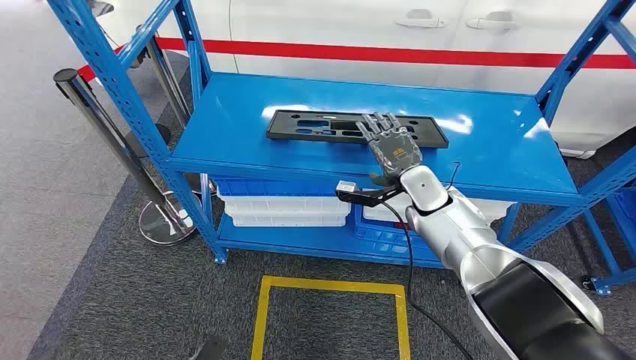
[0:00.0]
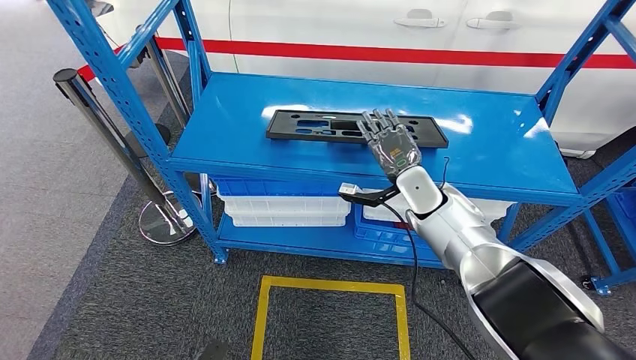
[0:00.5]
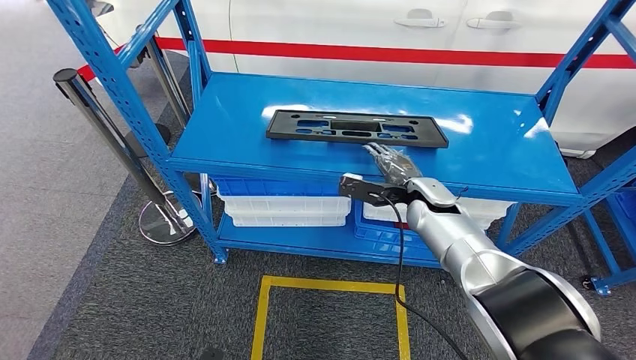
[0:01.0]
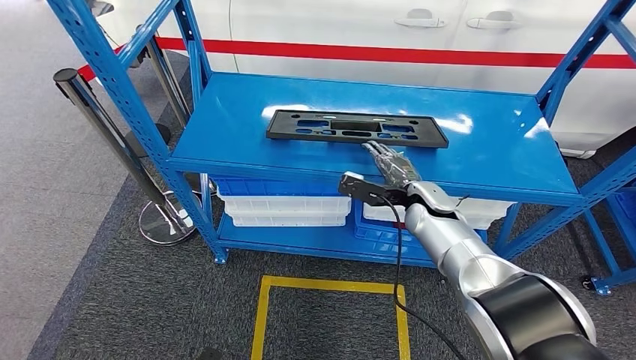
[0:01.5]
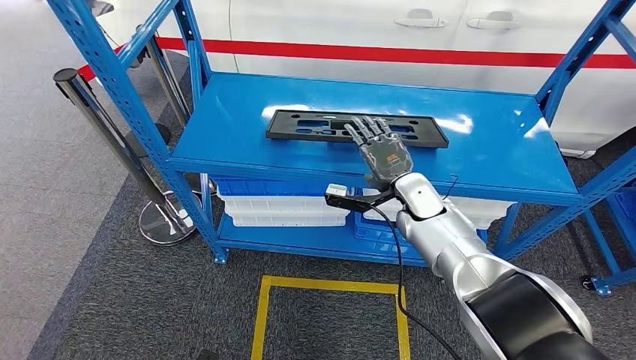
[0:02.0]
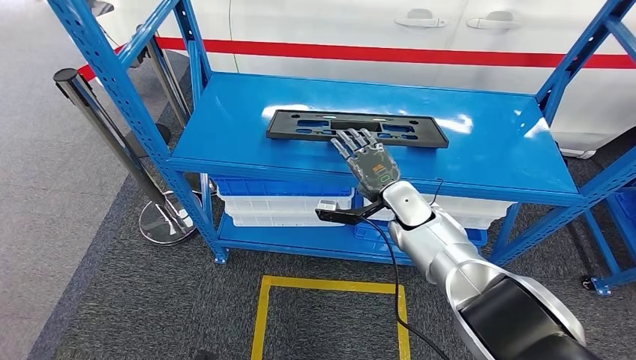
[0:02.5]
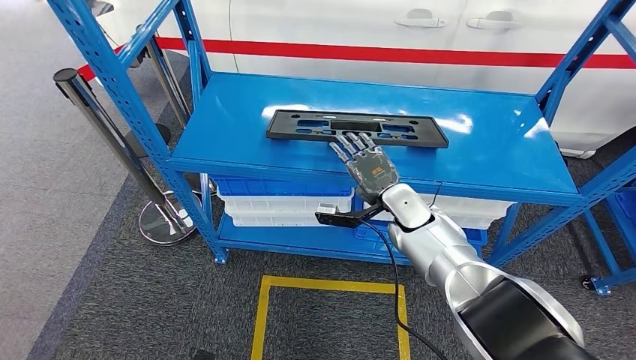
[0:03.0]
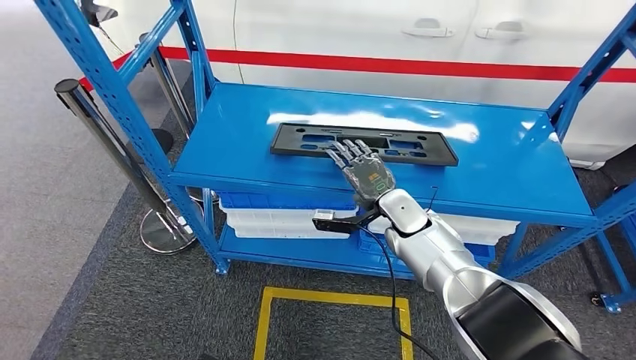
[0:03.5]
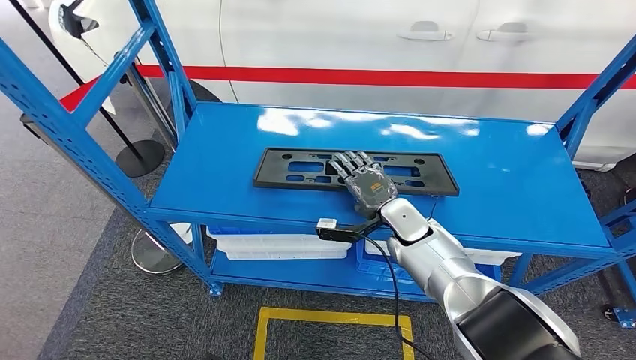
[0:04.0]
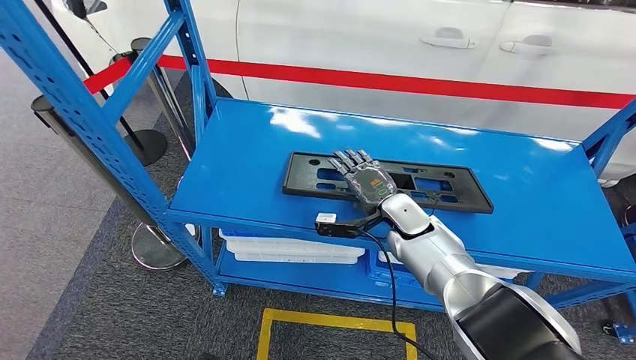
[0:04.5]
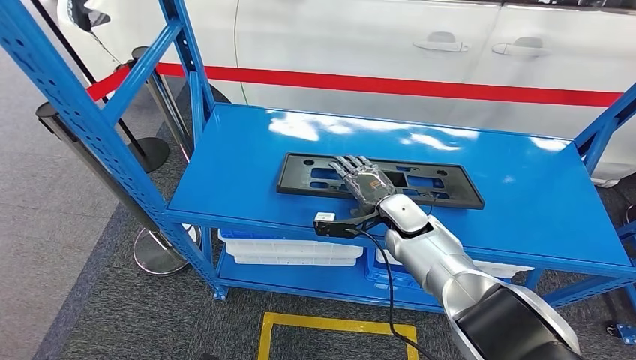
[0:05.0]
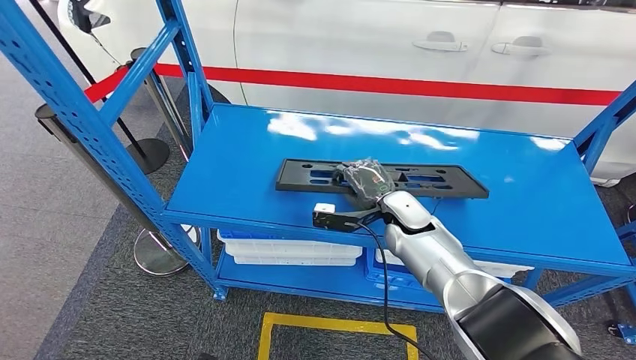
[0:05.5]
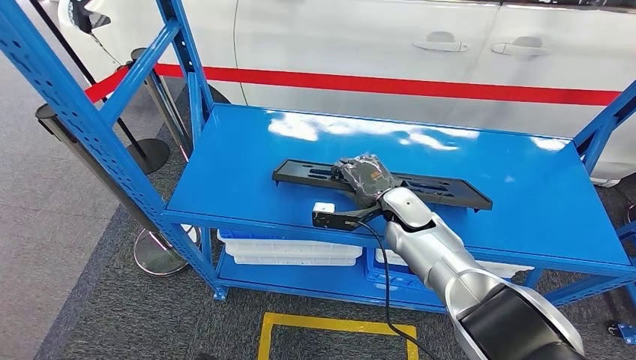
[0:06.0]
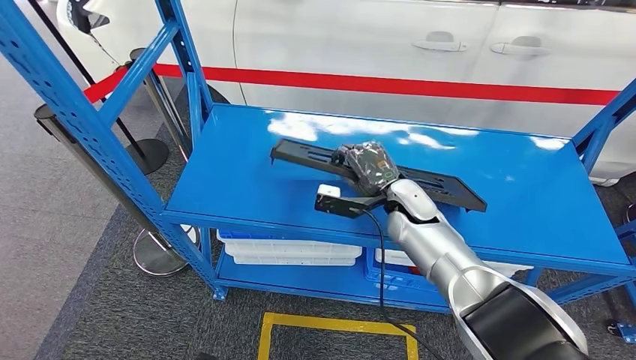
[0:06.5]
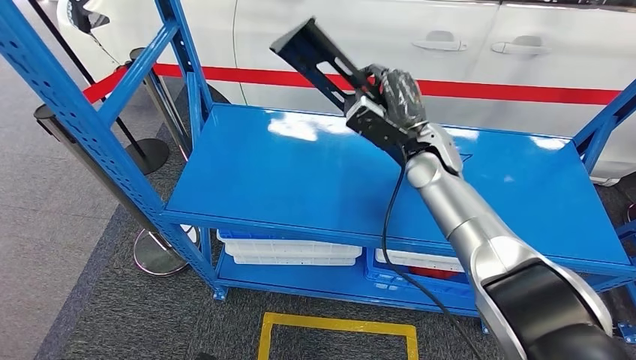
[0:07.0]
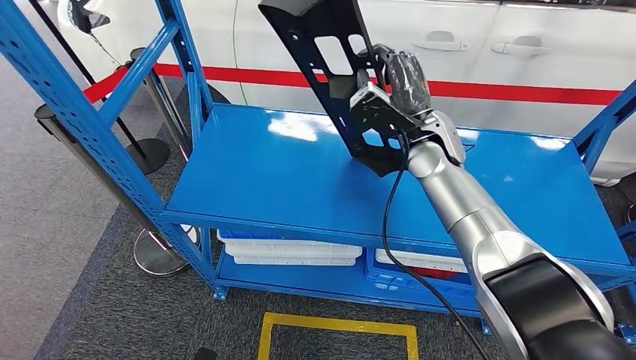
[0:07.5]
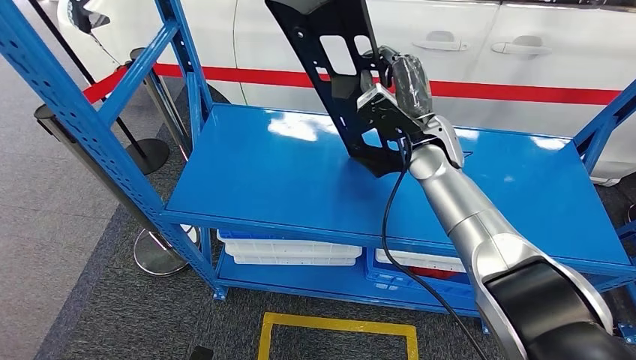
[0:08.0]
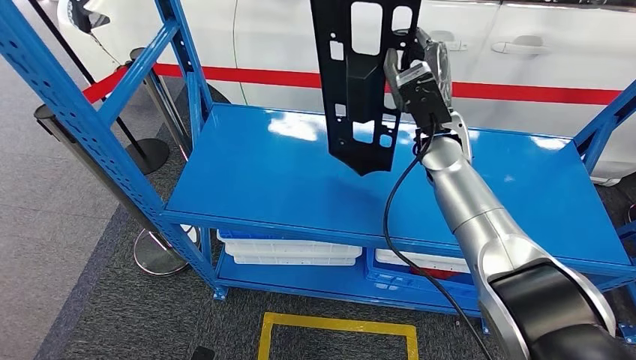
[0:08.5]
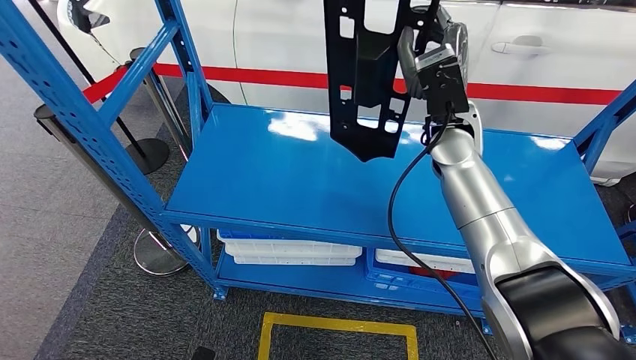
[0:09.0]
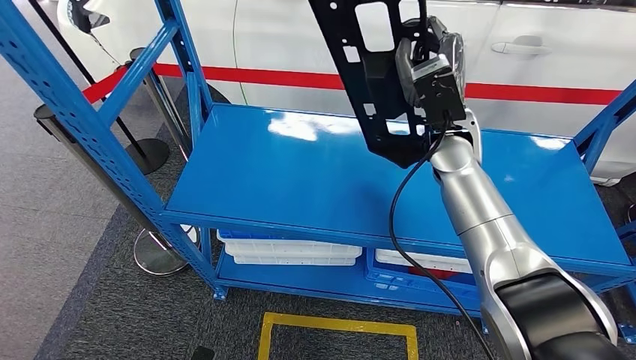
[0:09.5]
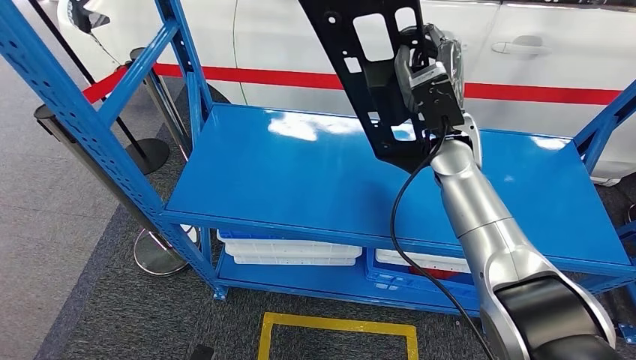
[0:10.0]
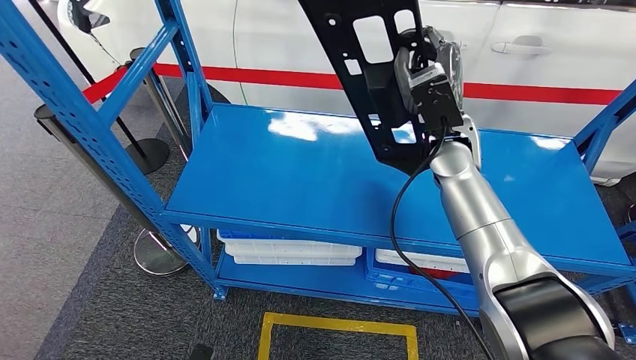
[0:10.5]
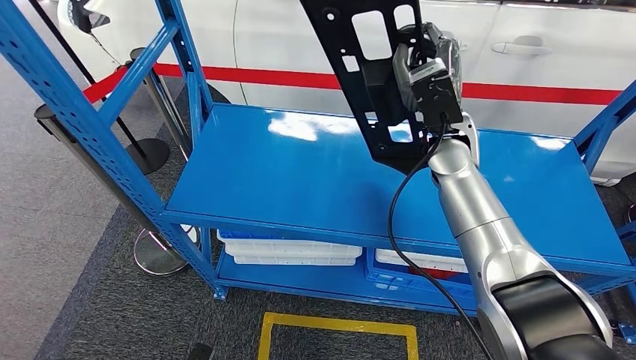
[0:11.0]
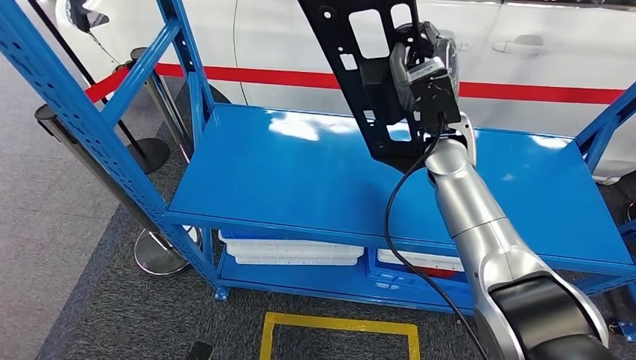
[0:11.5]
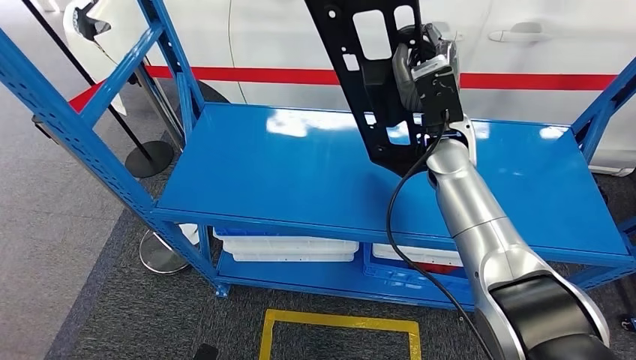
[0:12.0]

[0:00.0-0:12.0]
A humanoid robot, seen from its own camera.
Step, 0:00.0 to 0:07.5: Pick up the large material from the shelf.
0:08.0 to 0:10.0: The hands stay close to where they were, moving slightly.

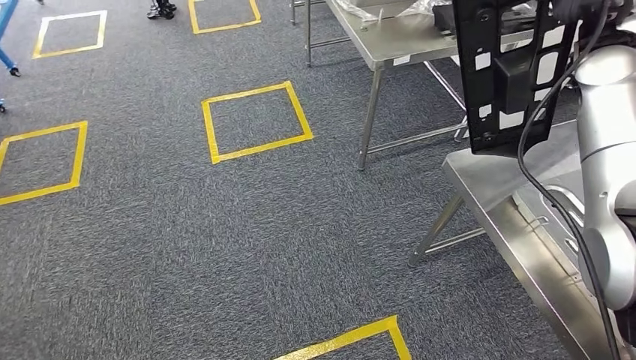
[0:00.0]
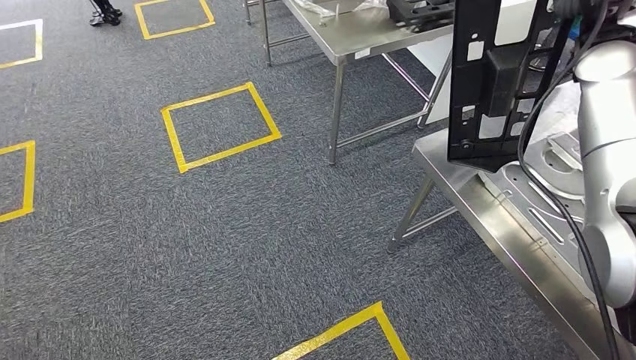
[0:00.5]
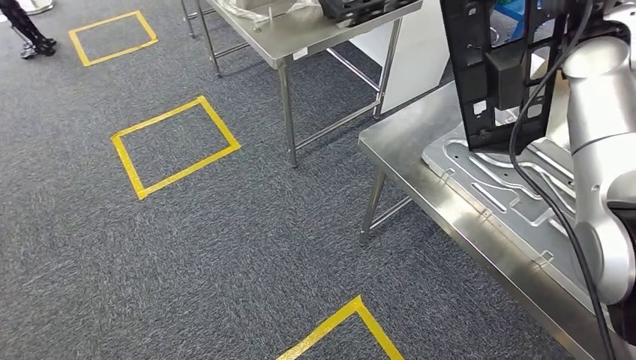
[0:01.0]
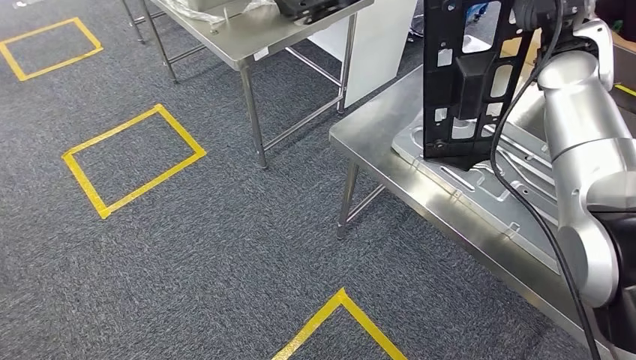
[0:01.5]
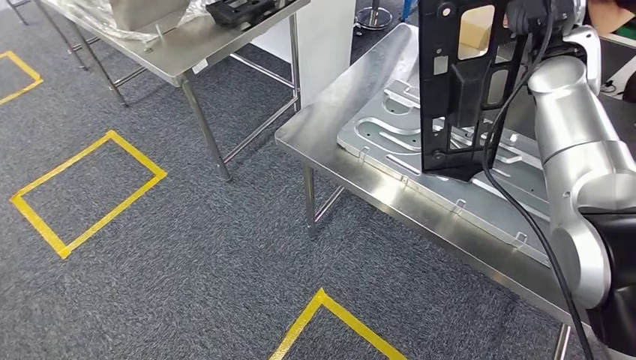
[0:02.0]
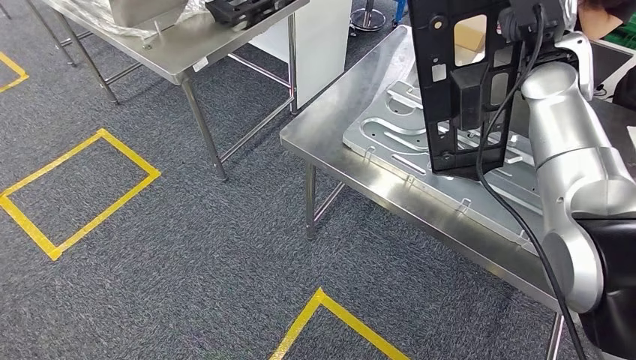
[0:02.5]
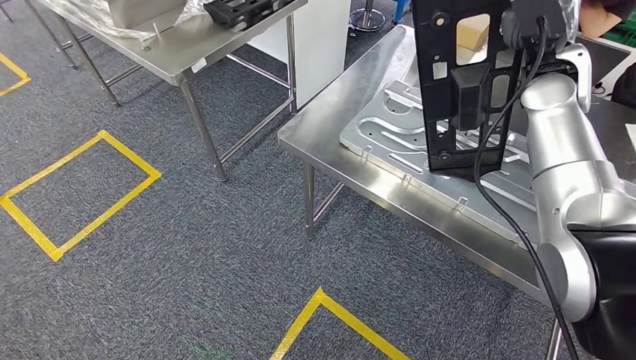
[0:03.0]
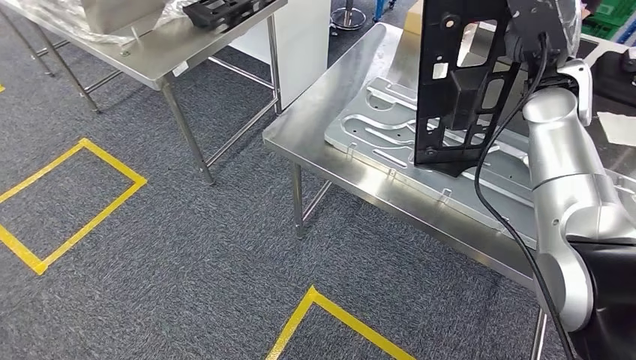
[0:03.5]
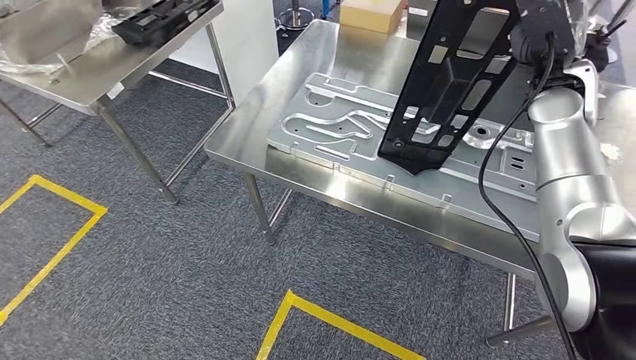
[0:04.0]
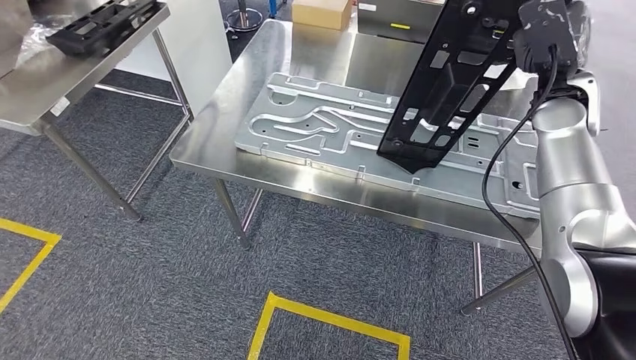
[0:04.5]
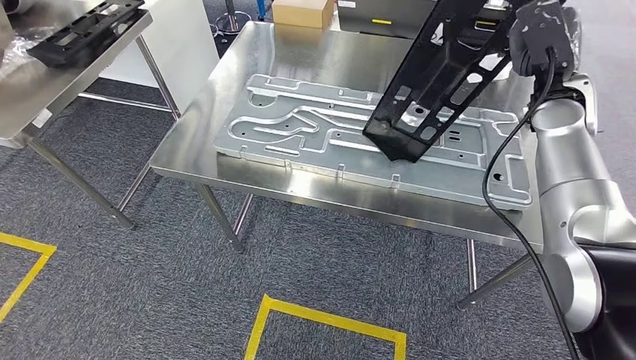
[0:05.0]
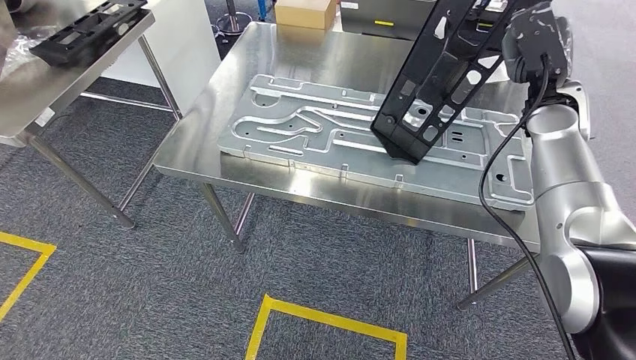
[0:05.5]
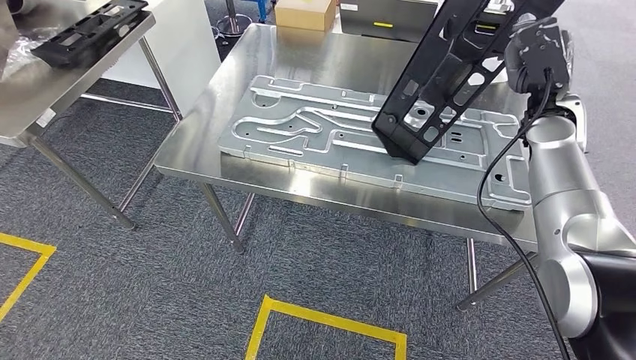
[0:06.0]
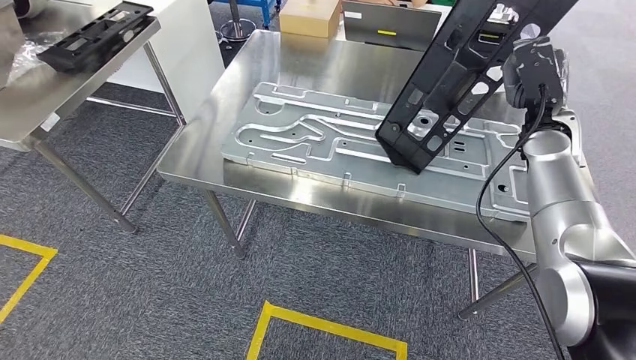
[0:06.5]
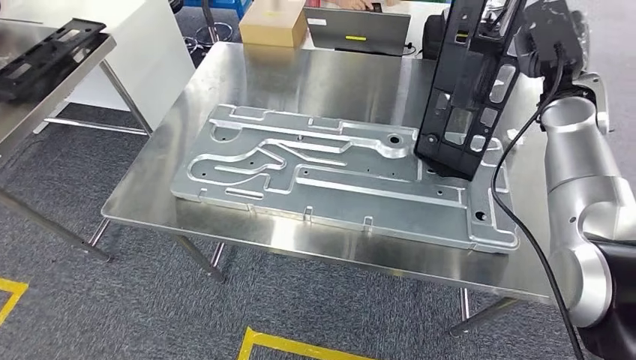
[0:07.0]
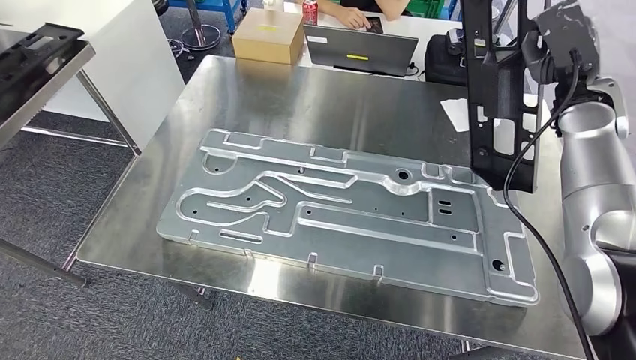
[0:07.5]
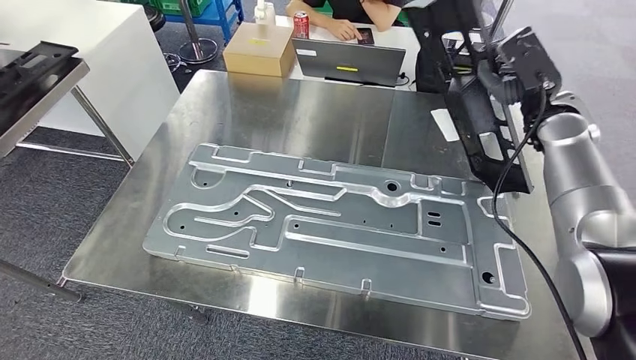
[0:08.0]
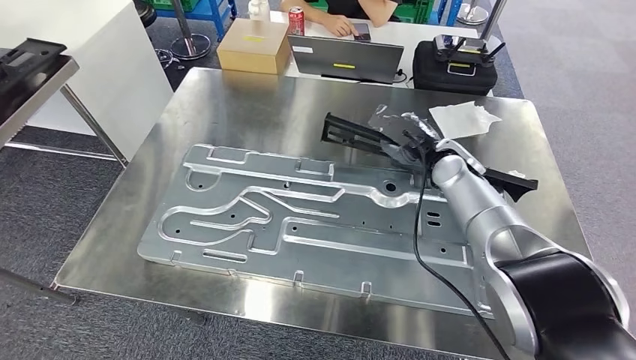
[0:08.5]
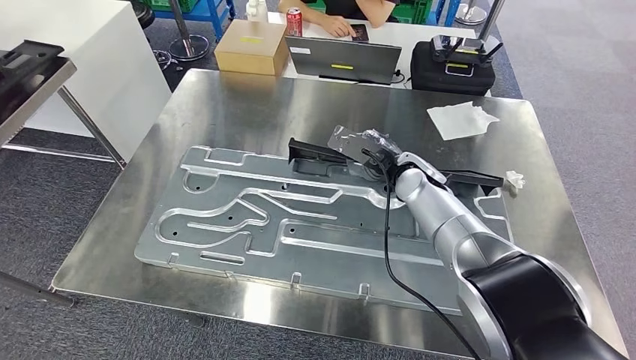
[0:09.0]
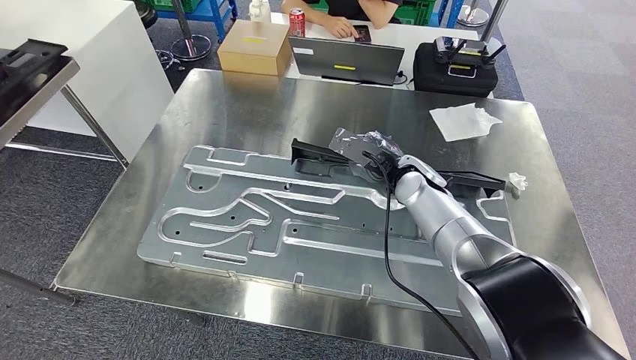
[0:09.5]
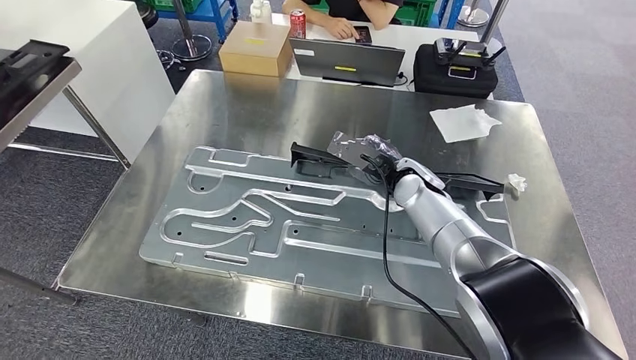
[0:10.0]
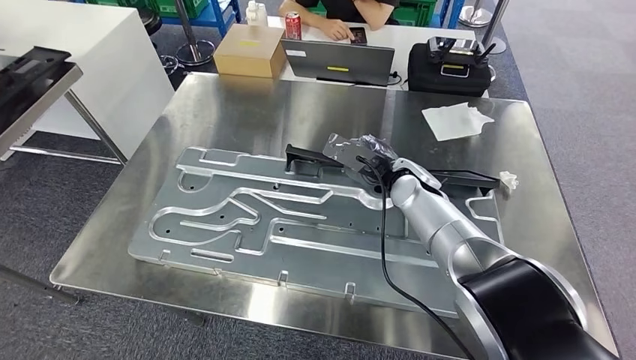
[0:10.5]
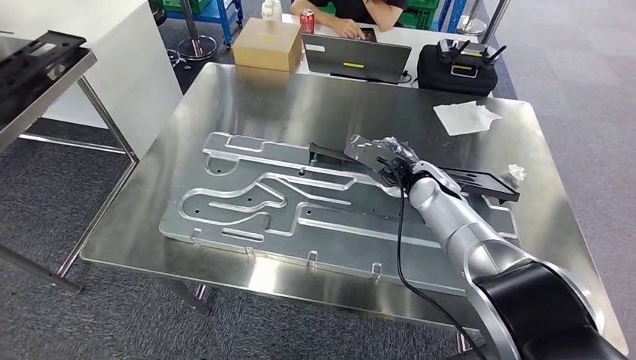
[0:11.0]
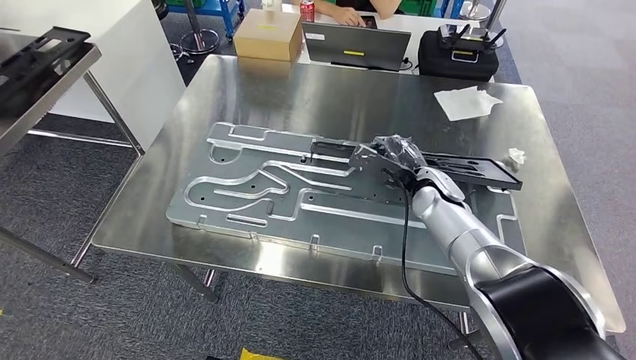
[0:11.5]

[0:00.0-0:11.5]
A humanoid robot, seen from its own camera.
Step, 0:00.0 to 0:03.0: Move the large material to the workbench.
